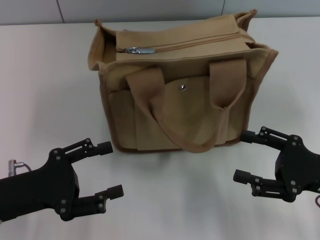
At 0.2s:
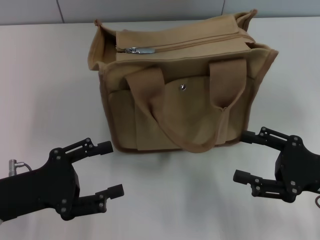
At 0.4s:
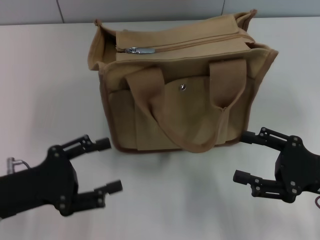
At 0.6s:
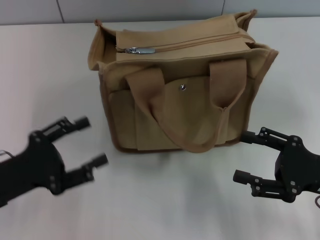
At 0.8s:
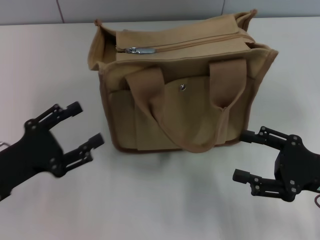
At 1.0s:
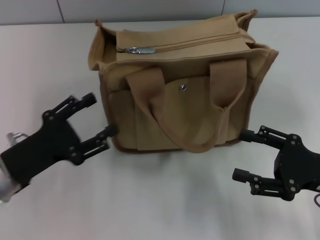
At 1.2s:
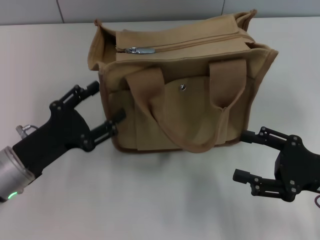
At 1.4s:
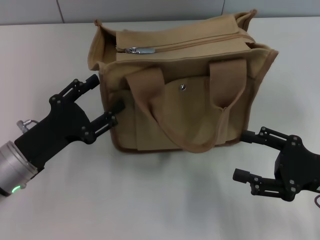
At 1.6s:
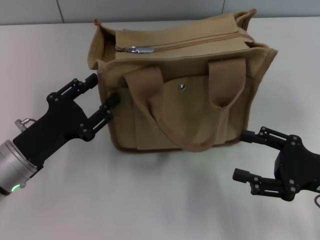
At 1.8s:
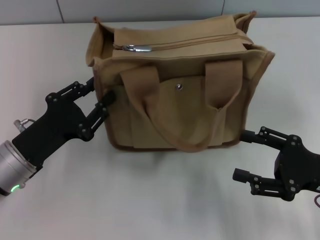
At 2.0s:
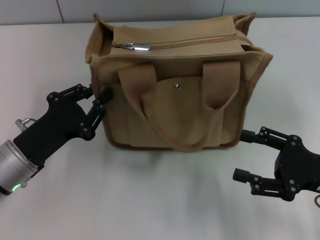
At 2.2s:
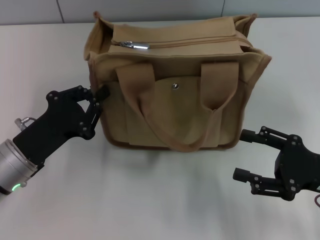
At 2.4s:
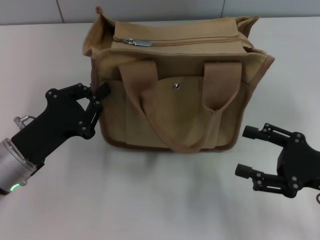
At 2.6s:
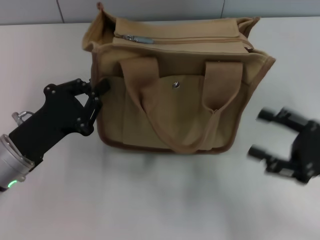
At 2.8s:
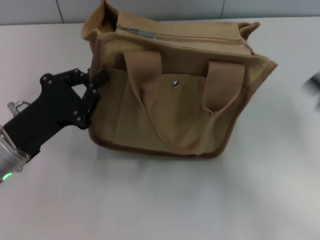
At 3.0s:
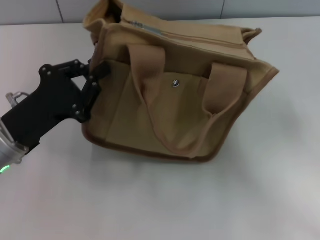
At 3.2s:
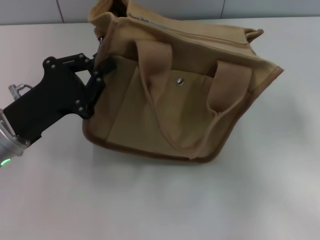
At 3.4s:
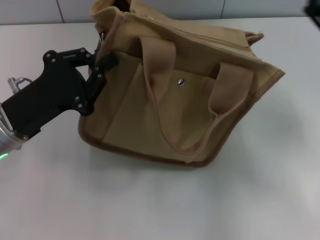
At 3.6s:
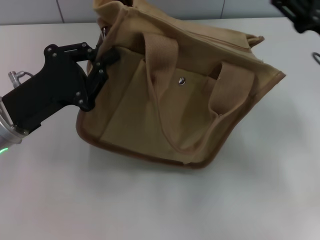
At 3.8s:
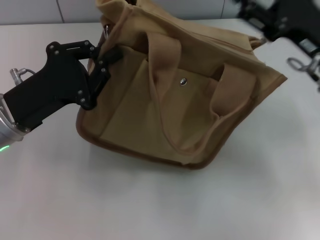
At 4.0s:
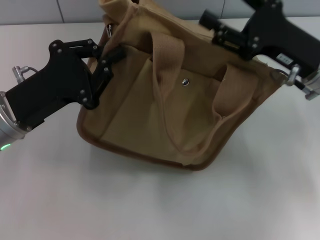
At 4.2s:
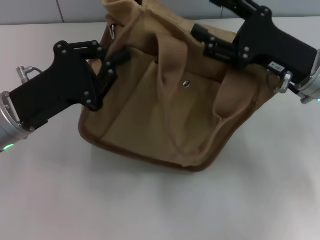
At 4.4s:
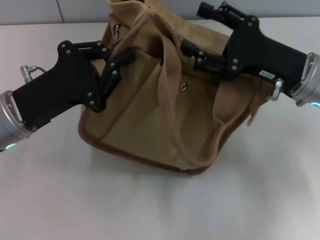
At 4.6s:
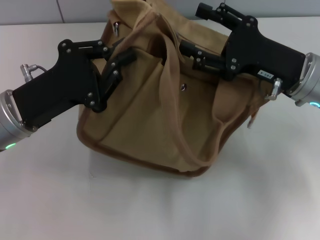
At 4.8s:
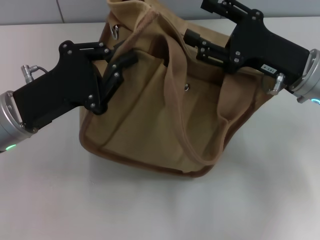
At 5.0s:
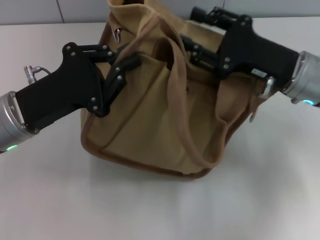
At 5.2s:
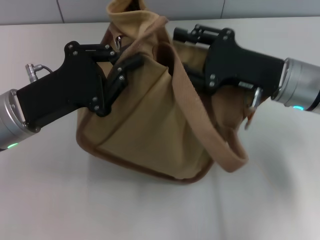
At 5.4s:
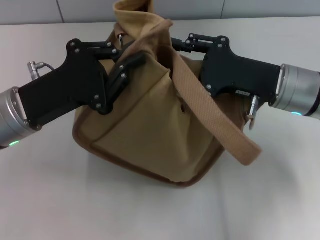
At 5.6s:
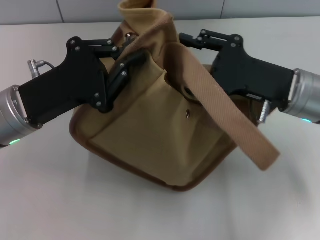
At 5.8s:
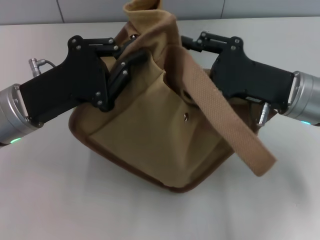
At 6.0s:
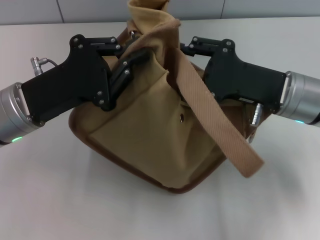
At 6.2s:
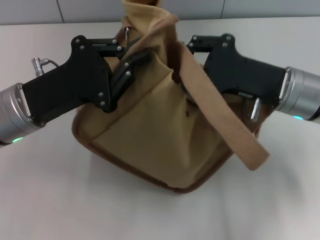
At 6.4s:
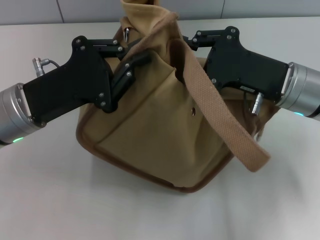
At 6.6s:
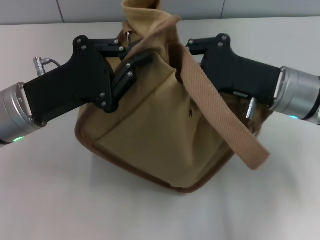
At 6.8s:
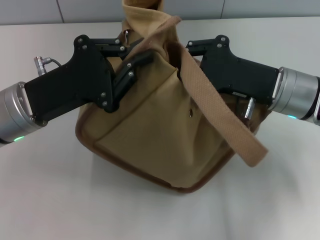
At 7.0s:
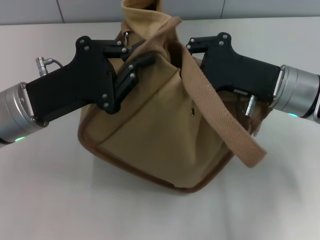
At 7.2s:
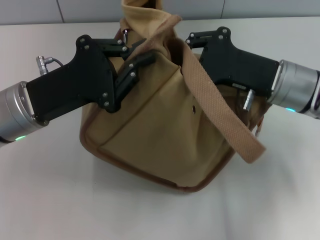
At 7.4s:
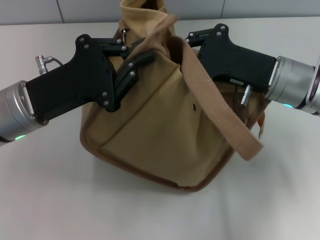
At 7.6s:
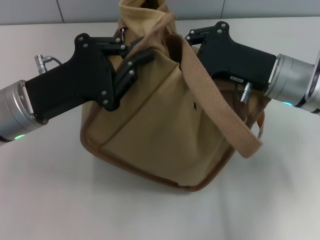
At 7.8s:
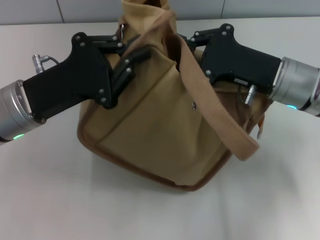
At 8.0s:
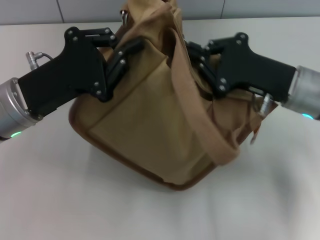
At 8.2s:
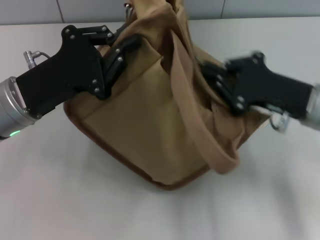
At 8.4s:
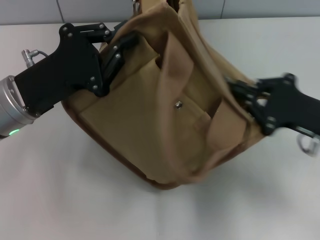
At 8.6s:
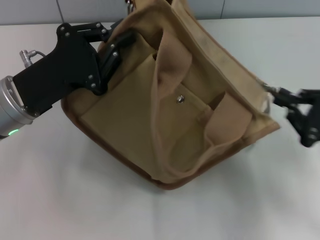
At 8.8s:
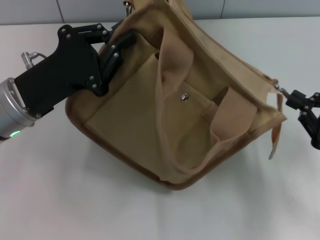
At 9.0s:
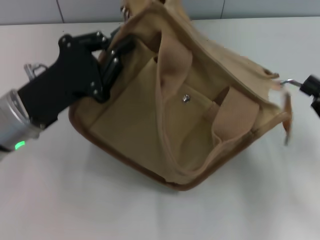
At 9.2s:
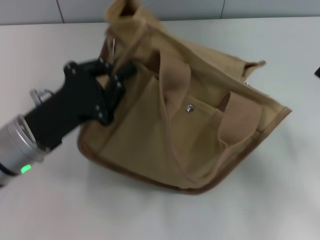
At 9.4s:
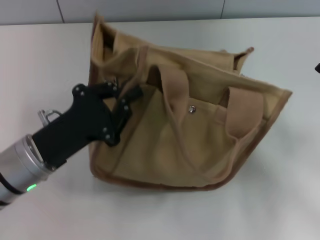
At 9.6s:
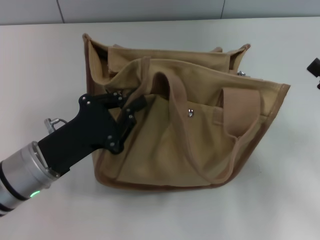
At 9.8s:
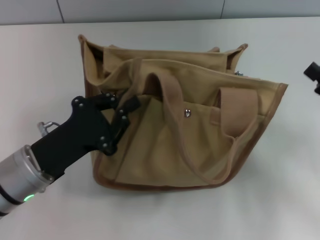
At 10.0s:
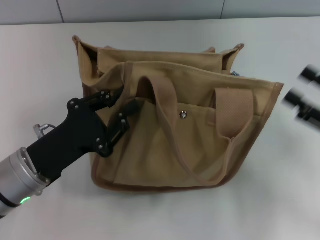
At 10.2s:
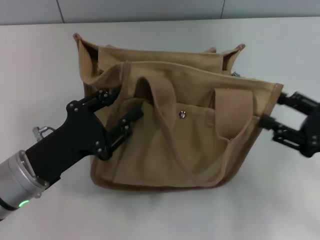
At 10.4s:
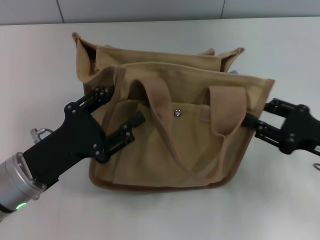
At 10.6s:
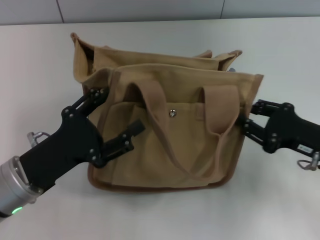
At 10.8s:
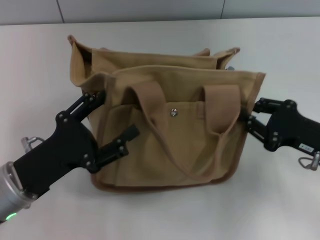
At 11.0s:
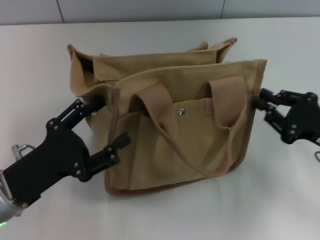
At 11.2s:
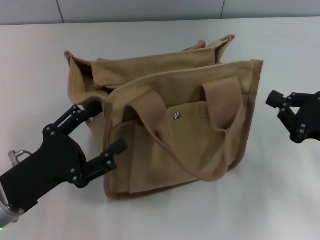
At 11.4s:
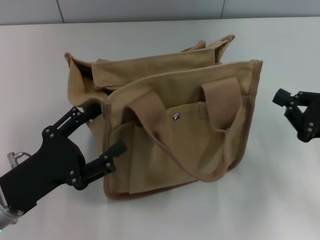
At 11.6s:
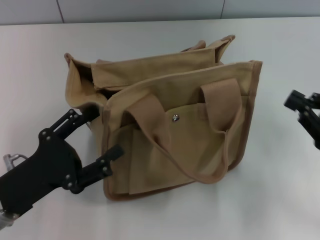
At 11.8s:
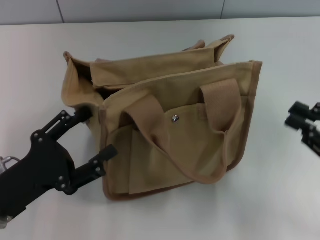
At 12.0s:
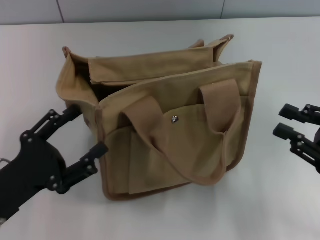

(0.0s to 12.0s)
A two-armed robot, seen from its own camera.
Step, 0.0s - 9.0s: Pull open the zipper with your right hand.
Step, 9.4s - 11.8s: Grab the bag with your left hand.
0.0s - 1.6s: The left gripper shifts by approximately 5 cm.
1.6s - 3.0s: The right gripper changes place by approximately 5 cm. The left gripper closes its fingers.
3.0s - 4.4s: The right gripper goes about 15 cm to the left and forward.
6.0s - 7.6s: The right gripper closes its fingers.
7.6s - 9.0s: The right gripper is displaced to the right and backward by roughly 20 cm.
9.0s - 10.4s: The right gripper moves roughly 5 cm, and opens up, while the left gripper goes roughly 5 cm backward, and opens up.
10.4s - 12.0s: The left gripper shifts by some 5 cm, and opens up. Meanwhile the right gripper ends up about 5 cm from where it was, and closes its fingers.

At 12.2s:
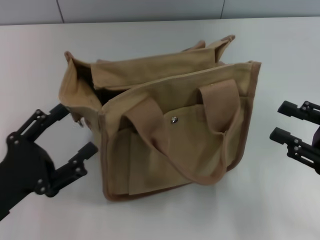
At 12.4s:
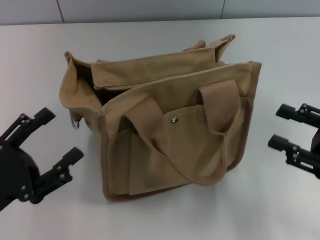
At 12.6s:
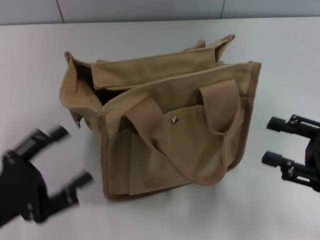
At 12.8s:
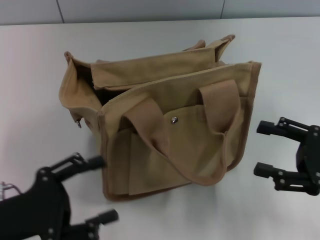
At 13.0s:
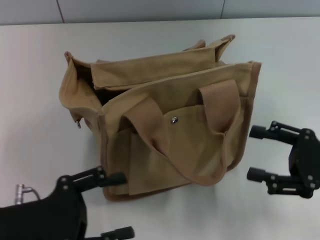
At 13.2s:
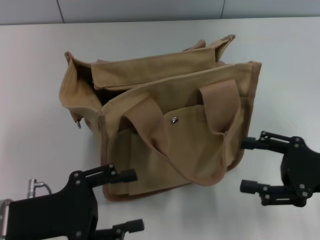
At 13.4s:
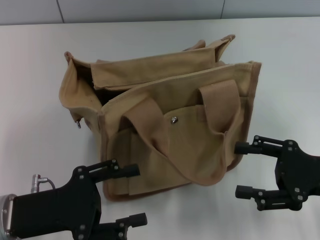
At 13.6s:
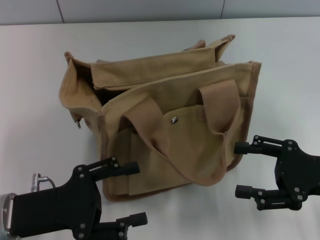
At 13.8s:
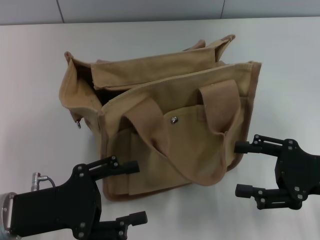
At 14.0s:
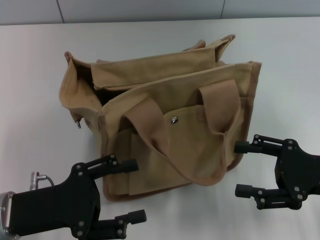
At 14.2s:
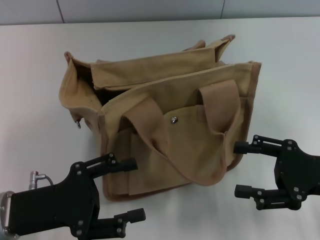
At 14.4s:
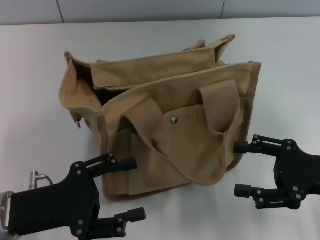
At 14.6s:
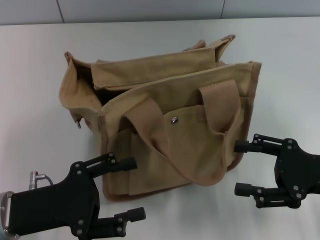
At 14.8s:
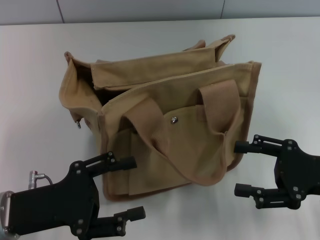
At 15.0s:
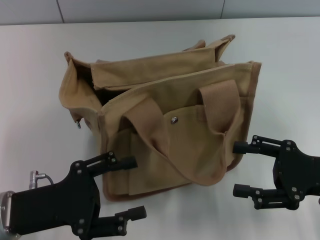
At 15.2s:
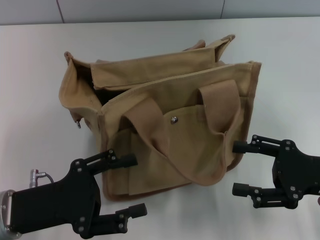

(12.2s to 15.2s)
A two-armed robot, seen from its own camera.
12.2s - 13.8s: The right gripper opens up.
13.8s - 15.2s: Neither gripper changes place.

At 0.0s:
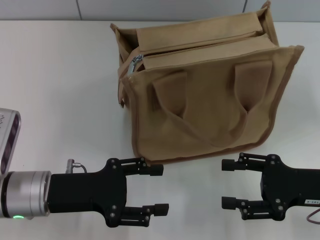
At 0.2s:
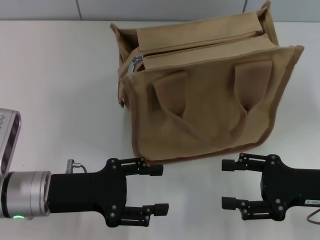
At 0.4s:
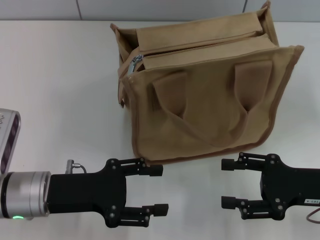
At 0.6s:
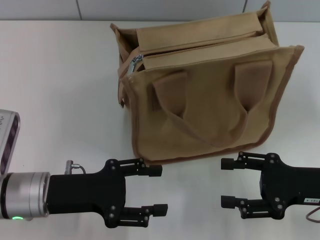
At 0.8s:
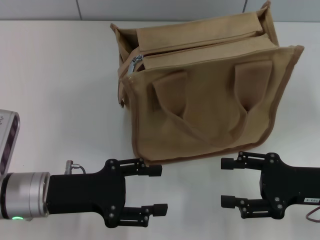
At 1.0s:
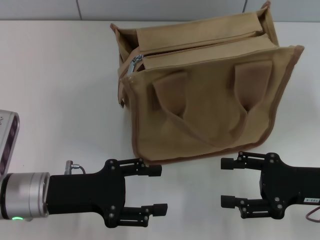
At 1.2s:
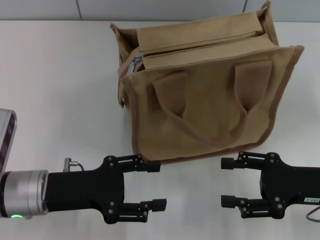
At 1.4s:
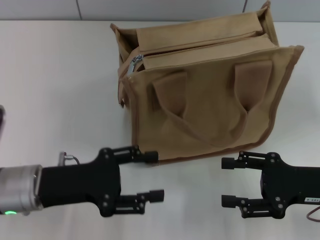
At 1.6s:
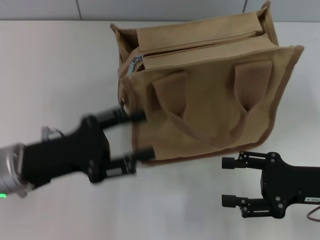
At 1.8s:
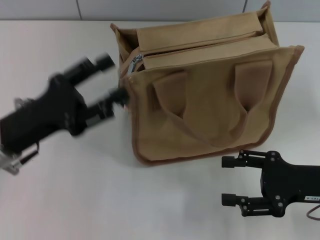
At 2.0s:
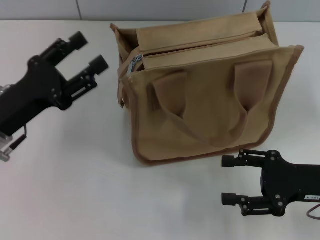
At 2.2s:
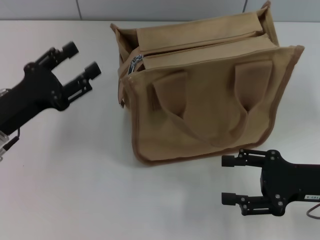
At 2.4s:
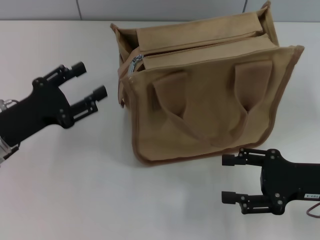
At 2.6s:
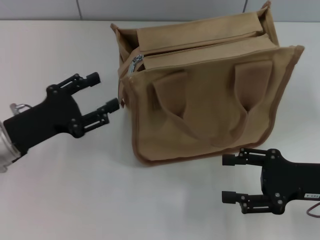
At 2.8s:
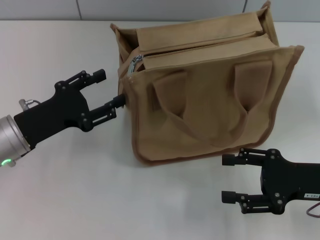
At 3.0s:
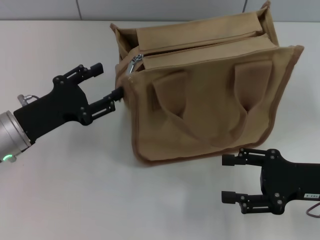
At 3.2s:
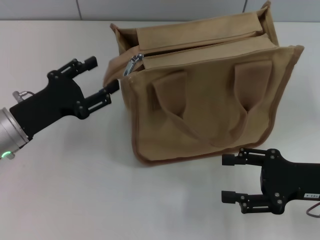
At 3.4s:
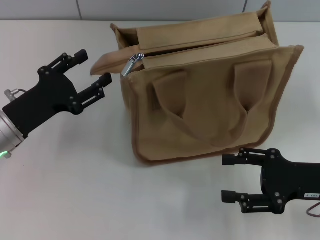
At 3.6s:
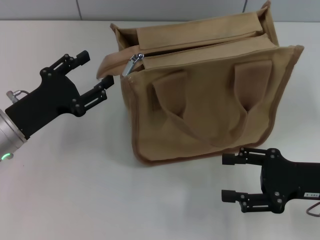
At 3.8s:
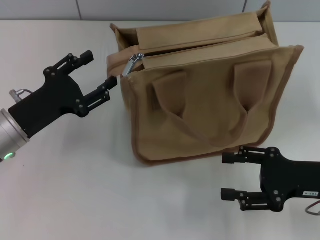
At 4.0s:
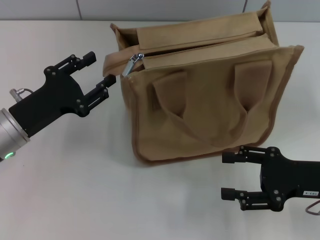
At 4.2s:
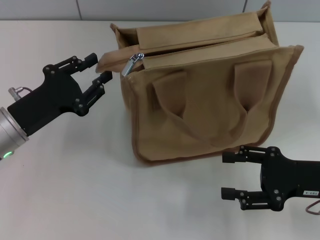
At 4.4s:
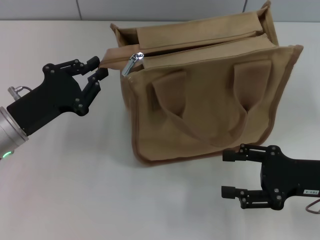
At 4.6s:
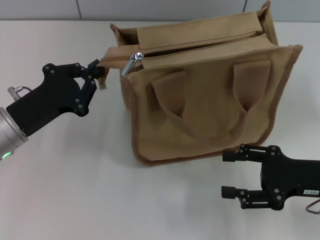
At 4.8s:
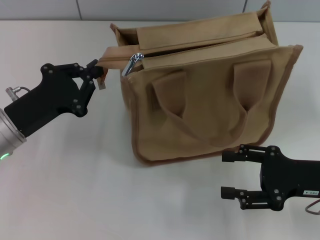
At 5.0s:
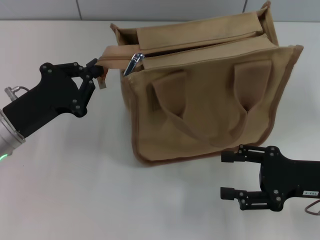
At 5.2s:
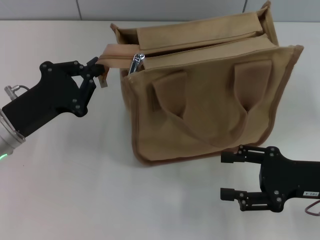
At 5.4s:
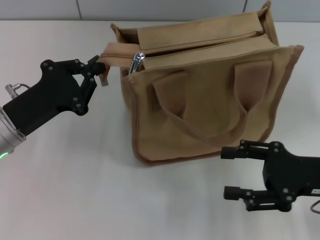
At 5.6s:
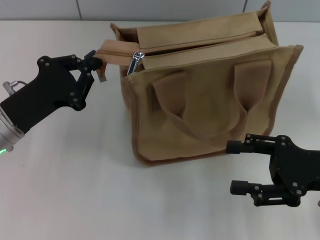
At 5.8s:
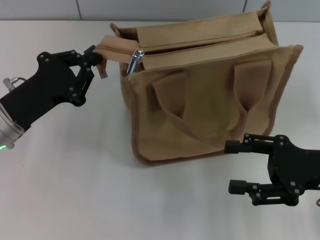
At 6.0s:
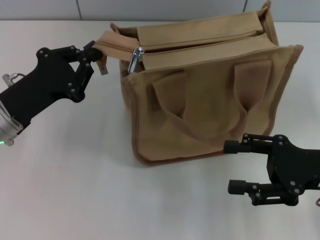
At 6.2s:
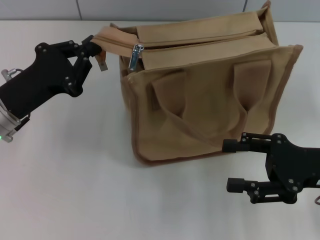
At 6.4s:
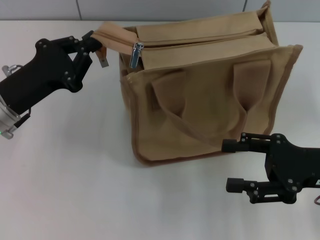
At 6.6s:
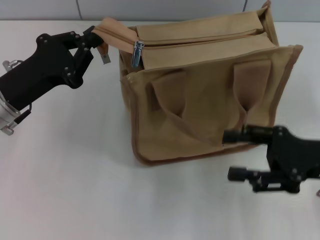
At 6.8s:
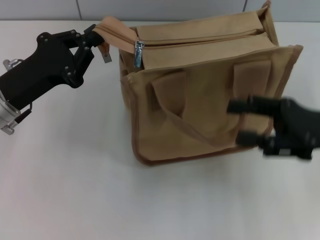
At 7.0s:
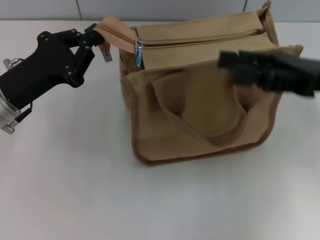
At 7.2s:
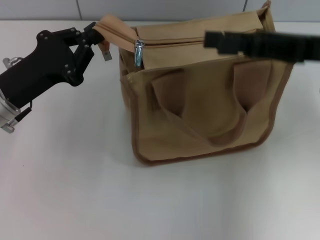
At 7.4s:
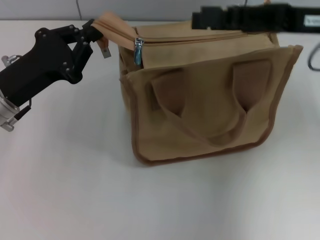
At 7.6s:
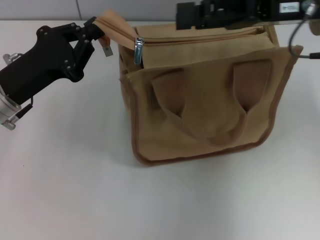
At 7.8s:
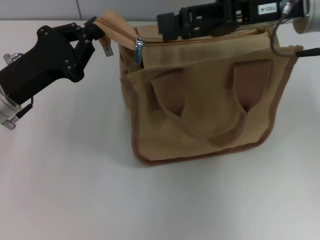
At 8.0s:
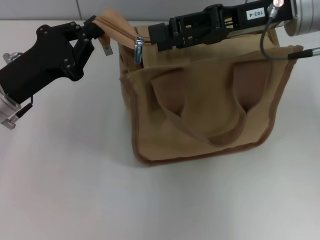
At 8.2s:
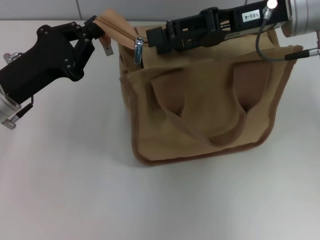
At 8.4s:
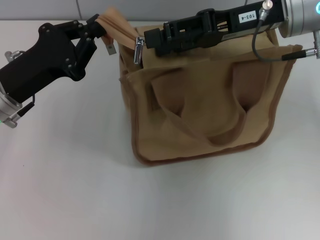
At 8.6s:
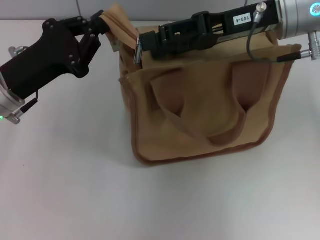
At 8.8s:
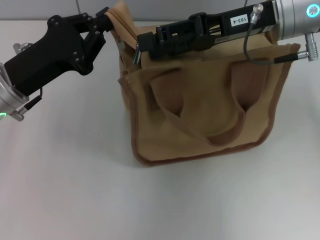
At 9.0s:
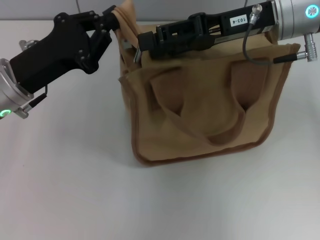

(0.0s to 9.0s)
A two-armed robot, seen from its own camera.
0.0s - 1.6s: There are only small adjustments of the grippers.
1.6s - 3.0s: The left gripper changes place by about 5 cm.
3.0s - 4.4s: The left gripper closes.
4.4s - 6.0s: The left gripper closes up.
6.0s - 7.6s: The right gripper heads forward, upward and to the left, covering roughly 20 cm.
7.6s - 9.0s: The grippers move only a little.
